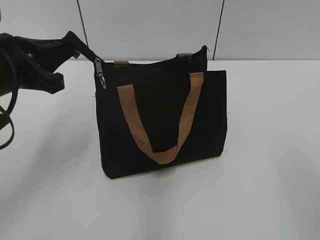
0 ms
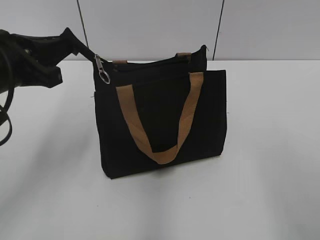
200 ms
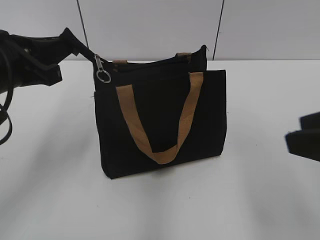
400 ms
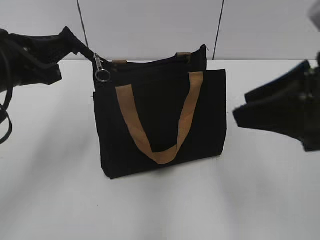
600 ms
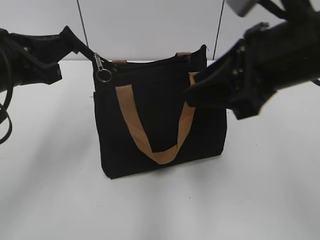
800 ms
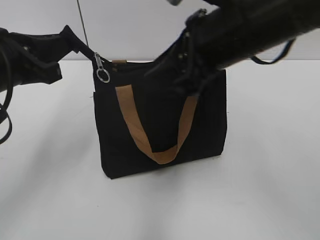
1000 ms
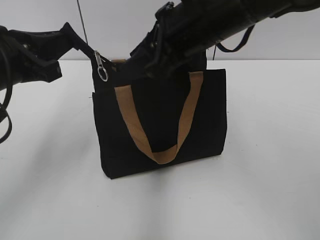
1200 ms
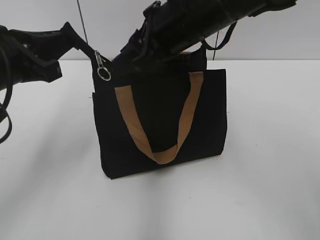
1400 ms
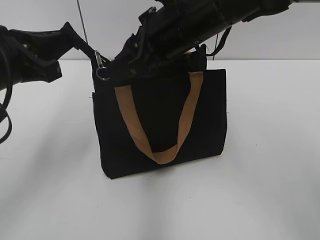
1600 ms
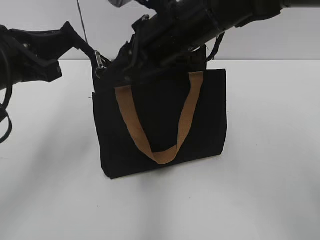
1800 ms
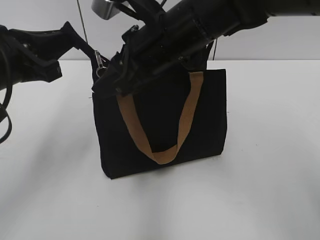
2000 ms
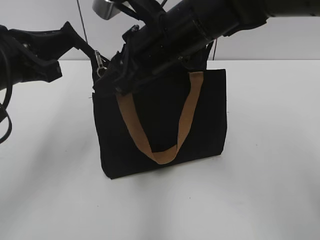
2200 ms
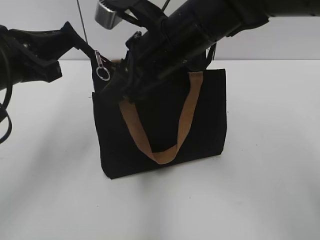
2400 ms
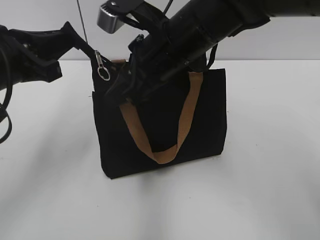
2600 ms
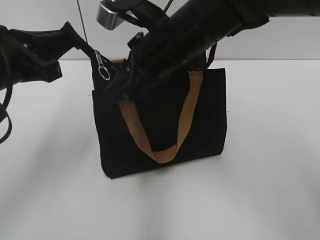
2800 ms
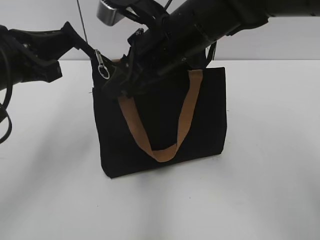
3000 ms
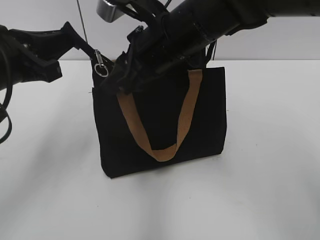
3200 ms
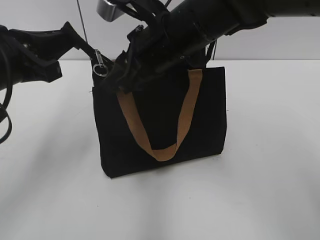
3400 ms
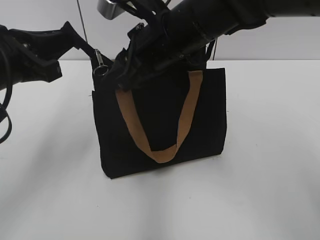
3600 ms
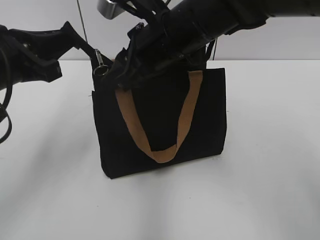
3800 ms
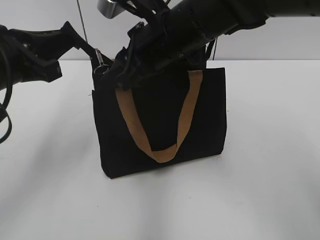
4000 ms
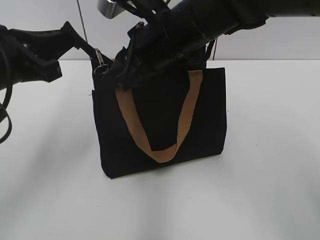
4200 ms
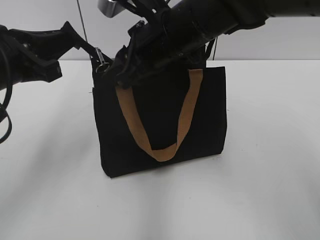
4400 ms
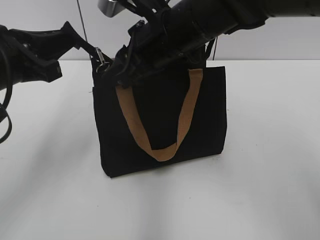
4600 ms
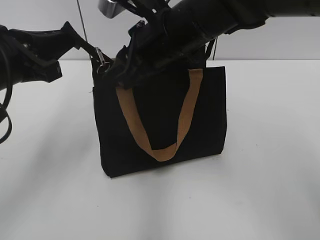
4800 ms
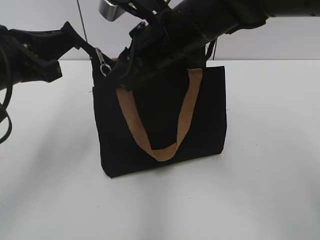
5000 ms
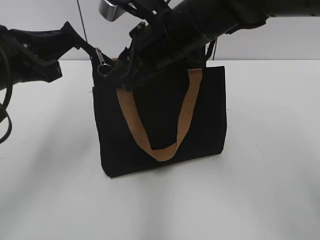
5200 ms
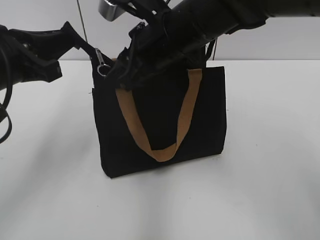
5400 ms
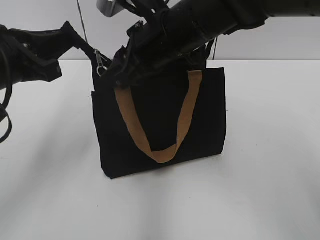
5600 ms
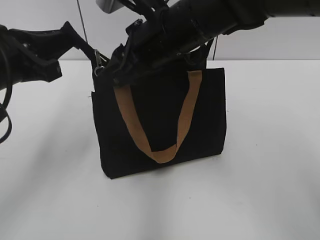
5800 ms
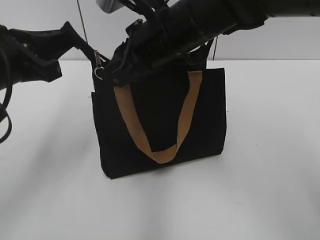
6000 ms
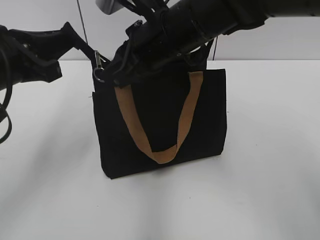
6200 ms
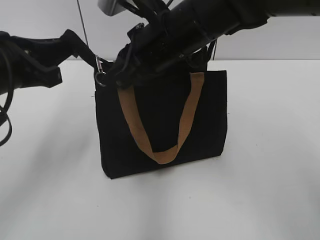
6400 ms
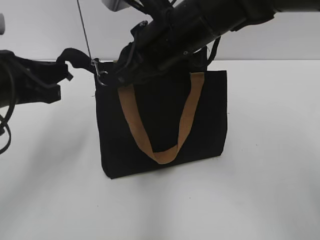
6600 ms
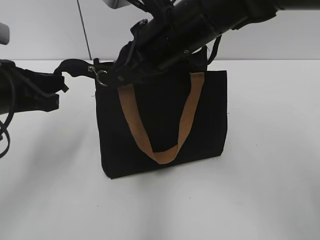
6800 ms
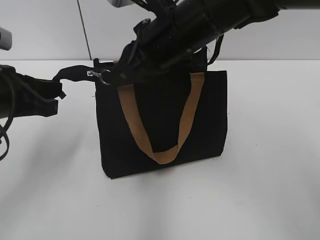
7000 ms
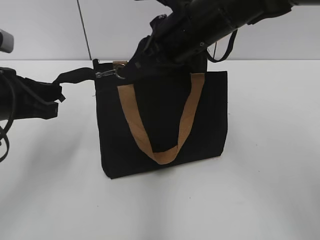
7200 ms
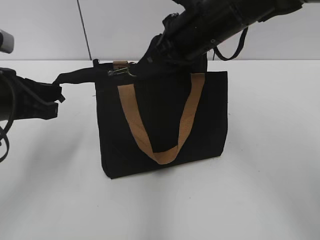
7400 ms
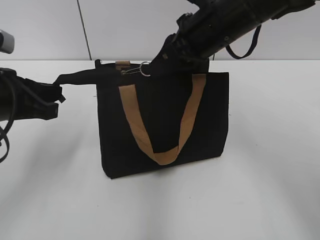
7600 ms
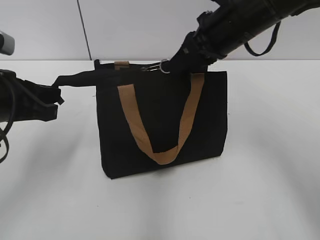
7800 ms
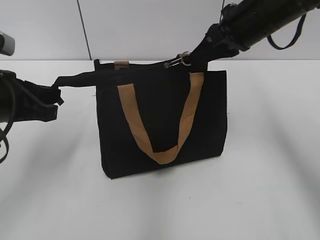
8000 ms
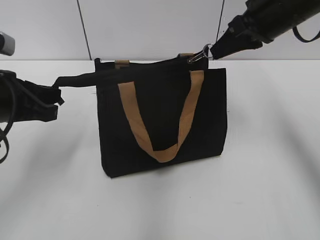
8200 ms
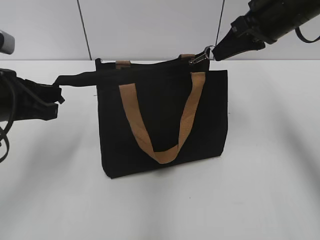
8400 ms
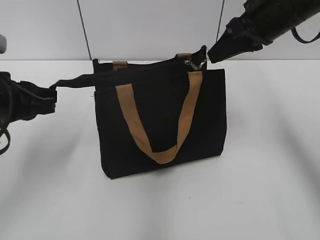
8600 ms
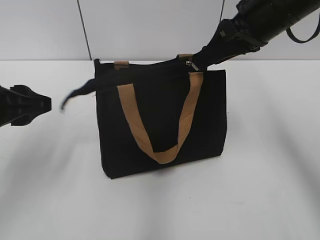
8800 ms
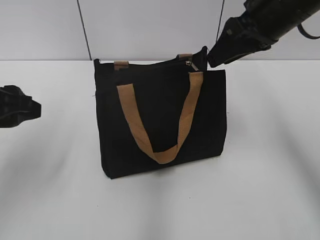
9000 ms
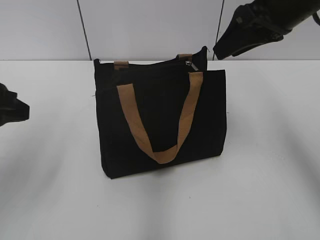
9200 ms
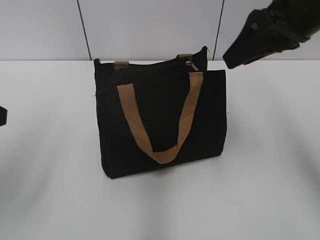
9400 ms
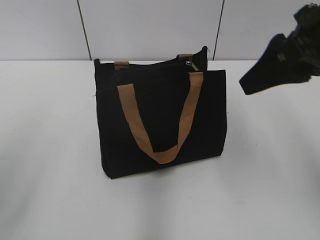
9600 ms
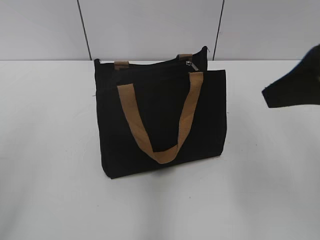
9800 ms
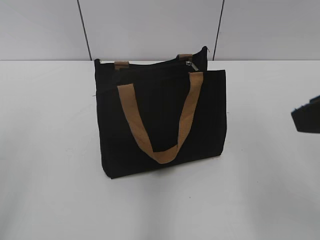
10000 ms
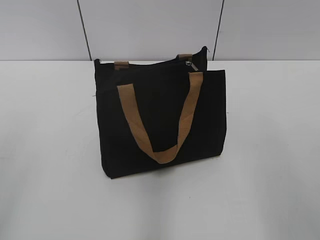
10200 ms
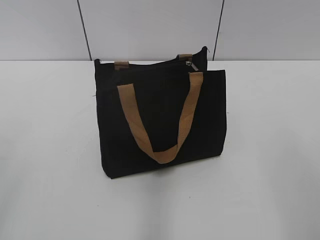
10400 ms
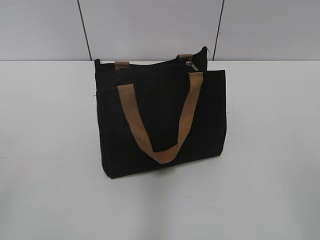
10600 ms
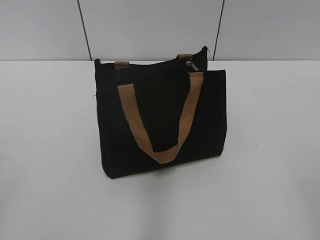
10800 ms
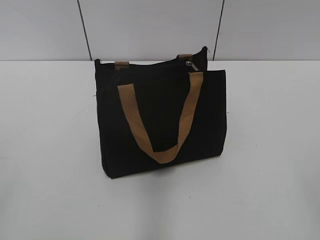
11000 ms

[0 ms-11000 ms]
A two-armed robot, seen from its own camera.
Step, 0 ms to 8600 ms: Zip up the bag with your right hand.
0 ms to 1600 ms: The right gripper moves forward and to the left, approximately 35 cm.
1600 ms to 3200 ms: The grippers stay close to where they were, moving slightly.
3200 ms to 4800 ms: Both grippers stay put.
4800 ms to 6200 ms: The right gripper closes its fingers.
6200 ms to 7800 ms: The right gripper goes about 10 cm to the right.
7800 ms to 9400 ms: The left gripper moves backward and upward, roughly 10 cm, and opens up. Meanwhile the right gripper shifts about 10 cm upward, to the right and backward, and opens its fingers.
9400 ms to 11000 ms: The right gripper moves backward, roughly 30 cm.

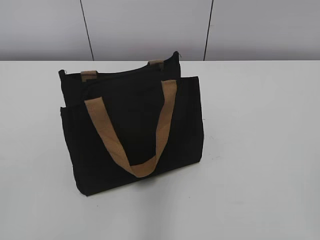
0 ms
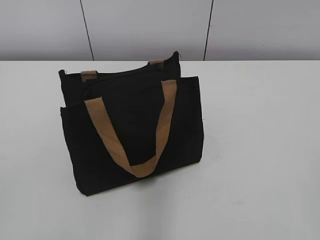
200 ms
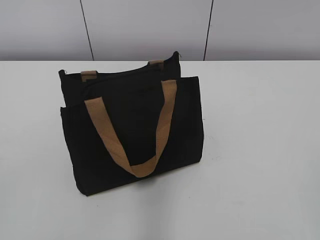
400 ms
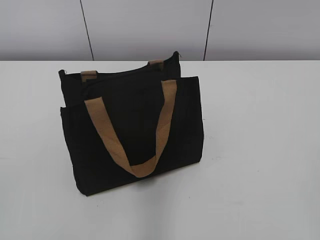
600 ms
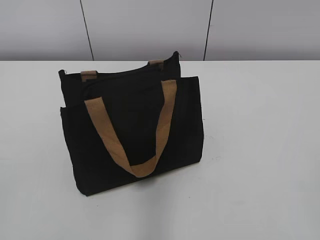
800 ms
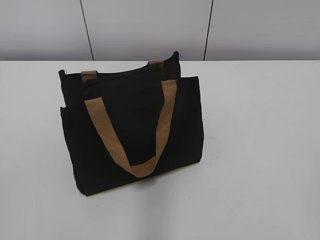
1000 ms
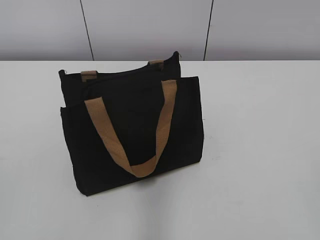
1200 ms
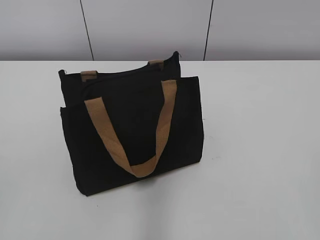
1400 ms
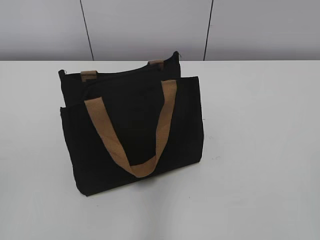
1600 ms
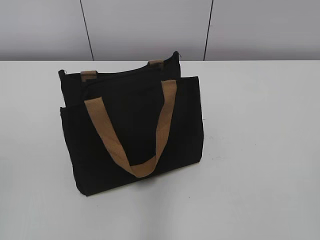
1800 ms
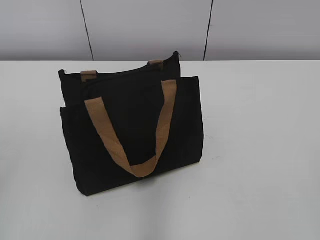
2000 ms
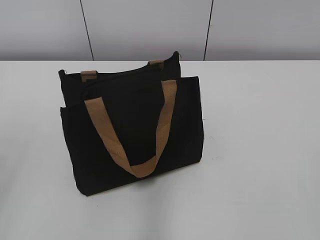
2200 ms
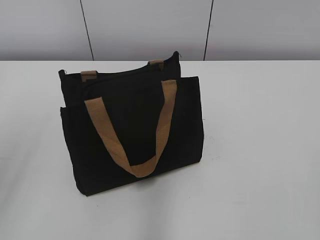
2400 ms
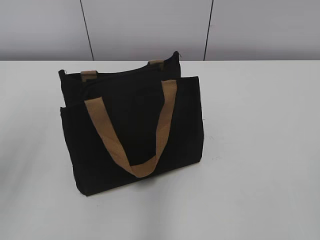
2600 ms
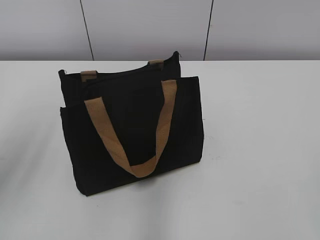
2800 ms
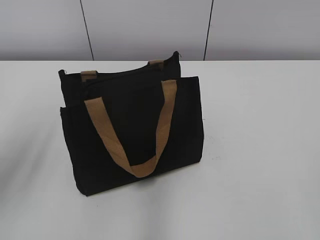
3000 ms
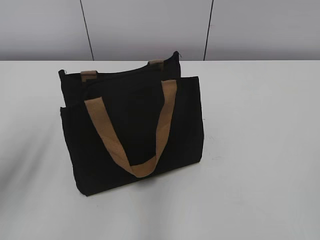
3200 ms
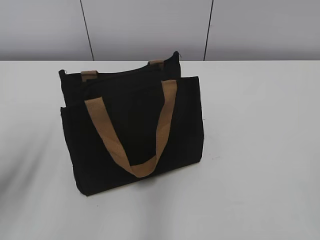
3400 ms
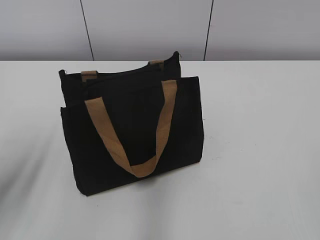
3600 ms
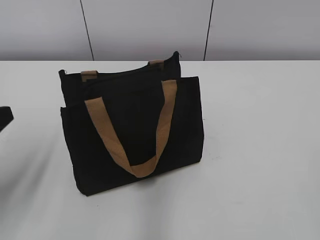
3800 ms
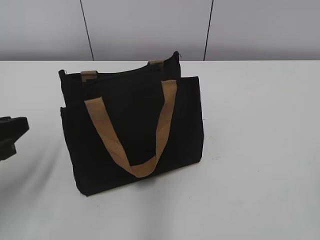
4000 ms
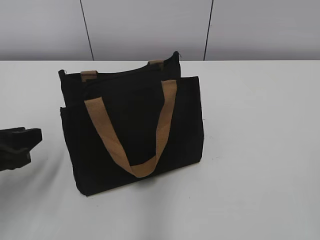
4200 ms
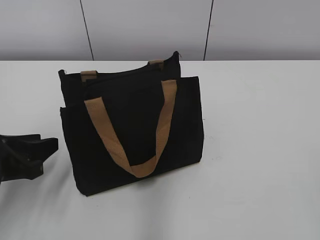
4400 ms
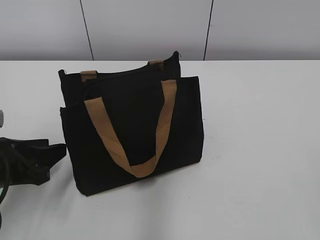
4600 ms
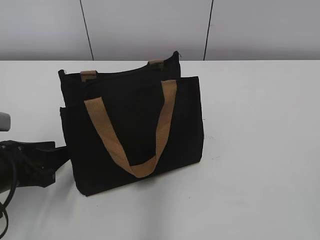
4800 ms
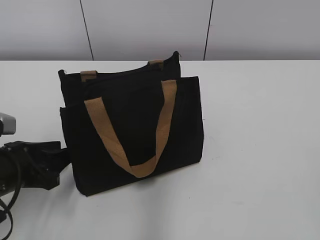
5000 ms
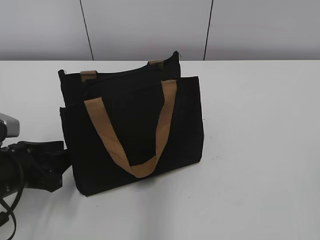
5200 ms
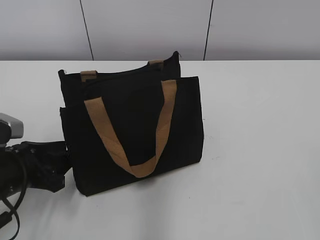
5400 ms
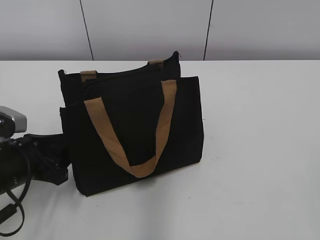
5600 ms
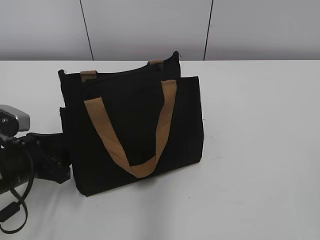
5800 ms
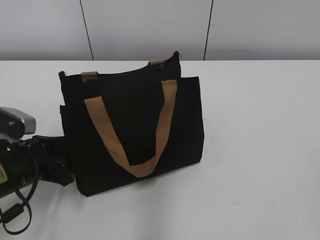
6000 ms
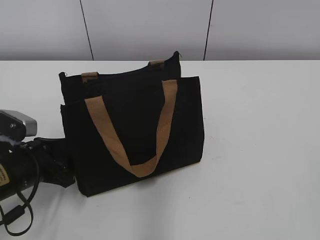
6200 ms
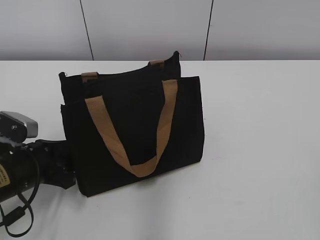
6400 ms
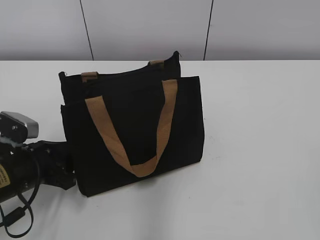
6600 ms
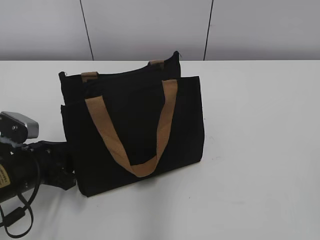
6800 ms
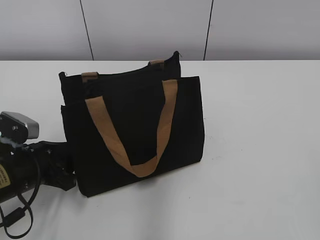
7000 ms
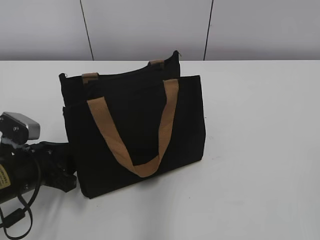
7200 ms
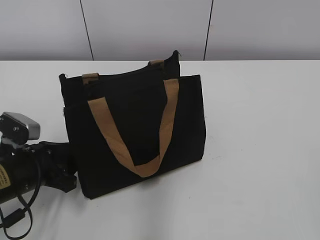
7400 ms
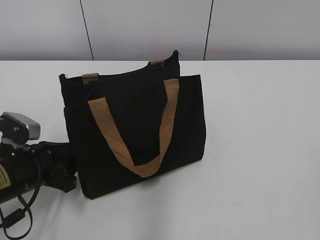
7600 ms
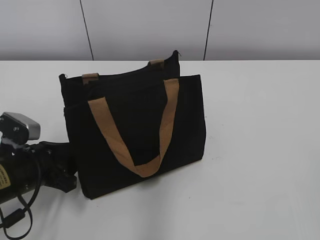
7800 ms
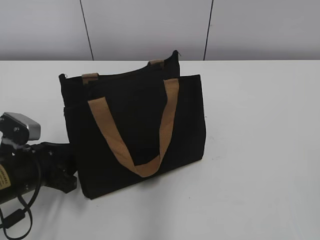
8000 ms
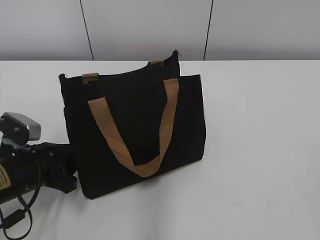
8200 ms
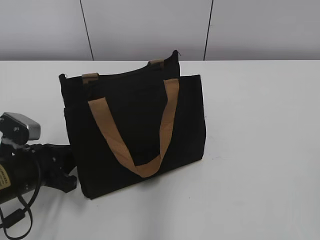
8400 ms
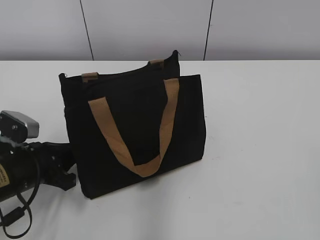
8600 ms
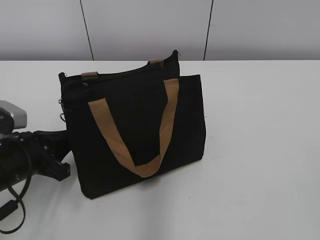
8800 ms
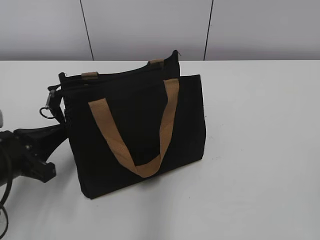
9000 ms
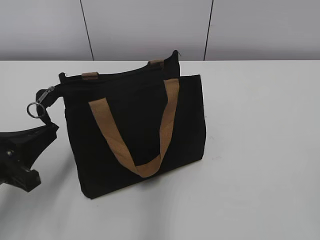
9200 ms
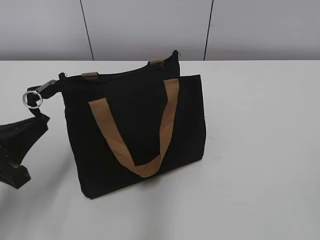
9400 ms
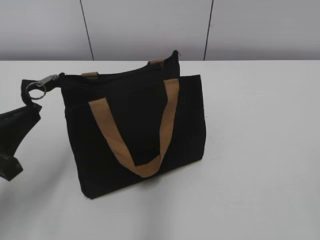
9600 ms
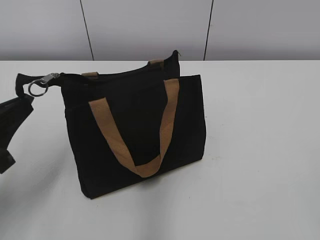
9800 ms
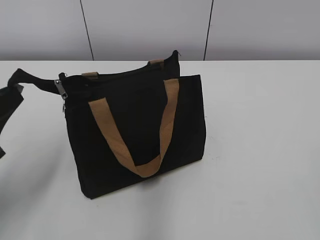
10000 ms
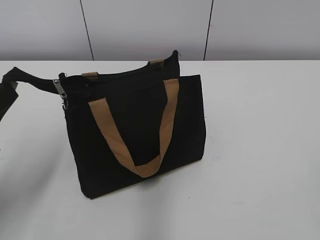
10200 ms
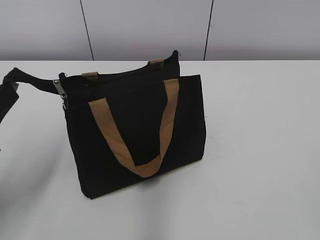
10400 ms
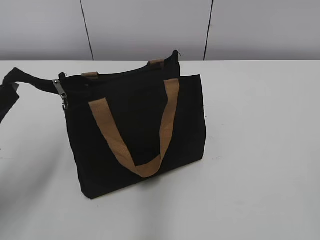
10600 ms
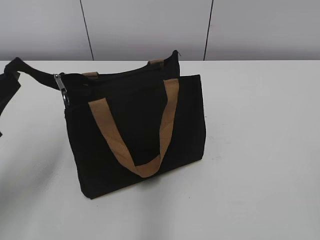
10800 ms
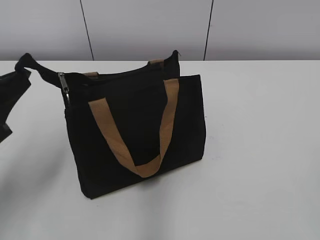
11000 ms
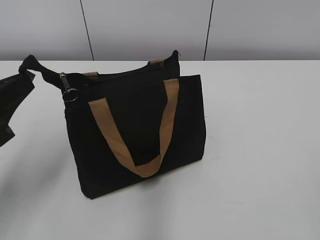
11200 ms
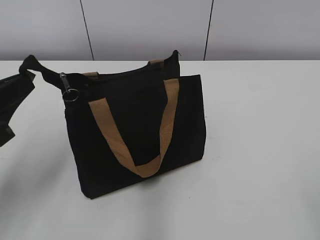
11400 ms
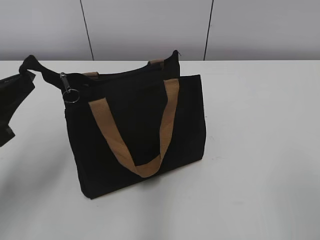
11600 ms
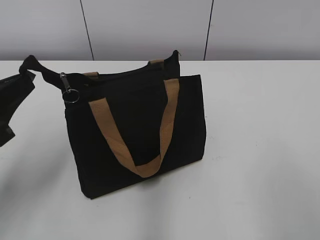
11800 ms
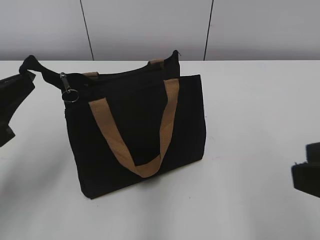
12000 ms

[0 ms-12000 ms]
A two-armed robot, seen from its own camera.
1600 ms to 3000 ms: The left gripper goes some 15 cm forward.
3000 ms to 4400 ms: The left gripper heads downward, covering approximately 15 cm.
4400 ms to 6000 ms: The left gripper is displaced downward by approximately 5 cm.
6000 ms to 7600 ms: Both grippers stay put.
7600 ms to 9000 ms: The left gripper closes its fingers.
9000 ms to 10400 ms: The left gripper heads upward, covering roughly 5 cm.
10400 ms to 12000 ms: The right gripper moves forward and to the left, roughly 10 cm.
